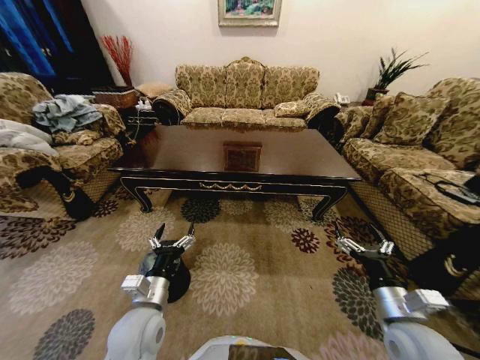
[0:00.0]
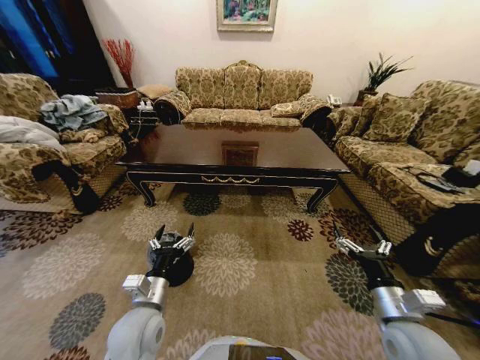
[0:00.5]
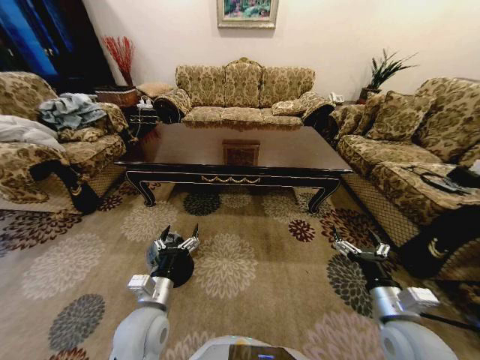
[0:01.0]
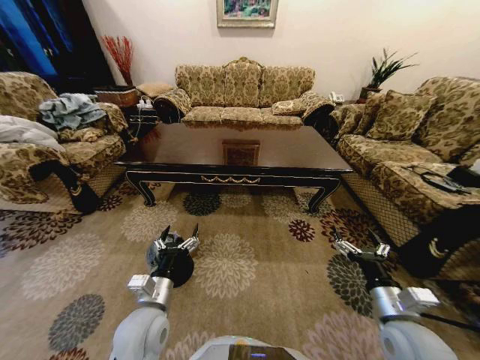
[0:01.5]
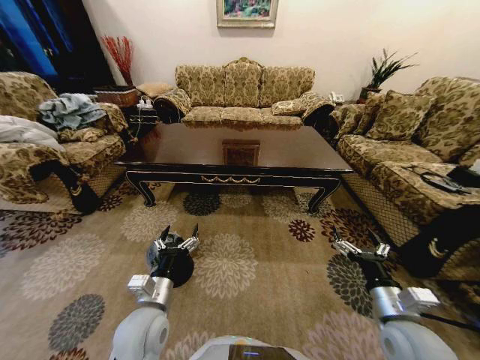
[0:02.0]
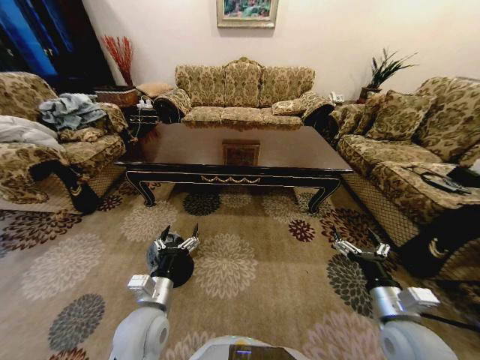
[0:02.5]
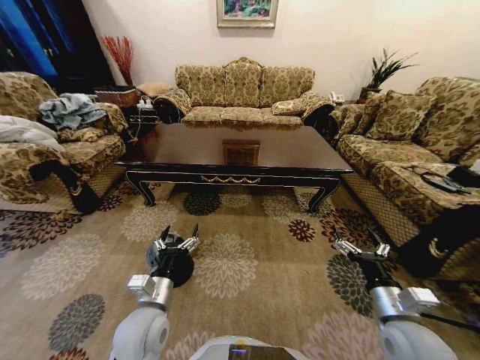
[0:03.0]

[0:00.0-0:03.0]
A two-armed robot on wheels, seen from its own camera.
Task of the whole recording: Move to the front of the table and place the trash on the table into the trash bin.
0:01.5 to 0:03.0: Neither gripper changes place.

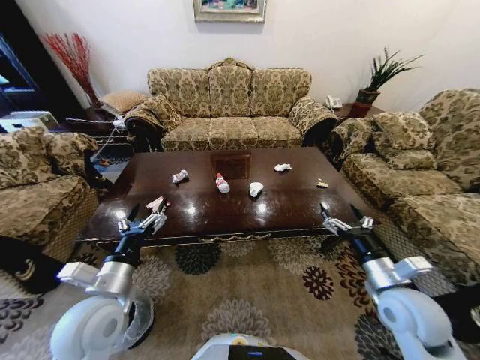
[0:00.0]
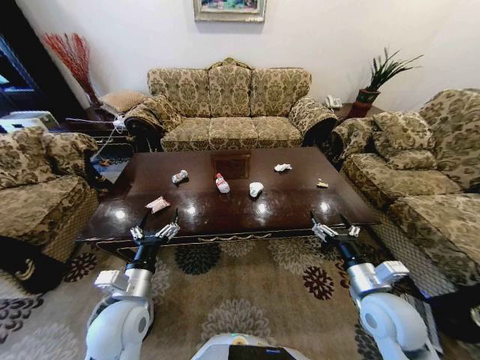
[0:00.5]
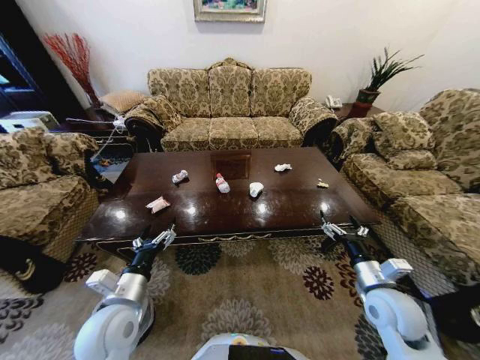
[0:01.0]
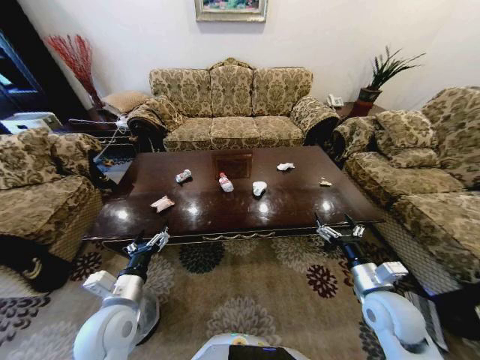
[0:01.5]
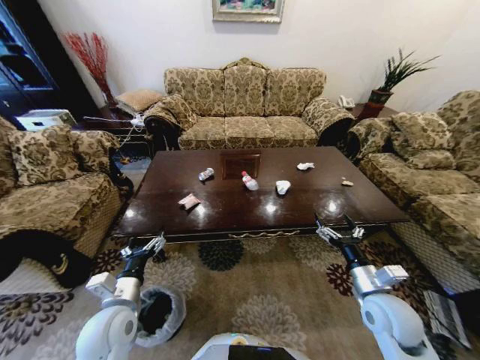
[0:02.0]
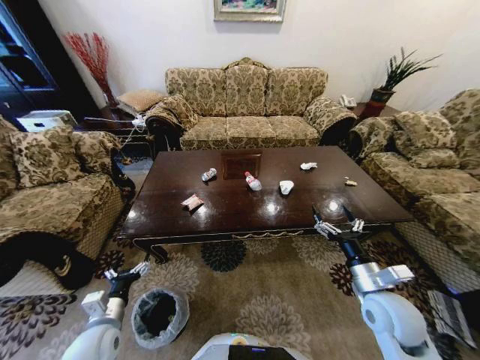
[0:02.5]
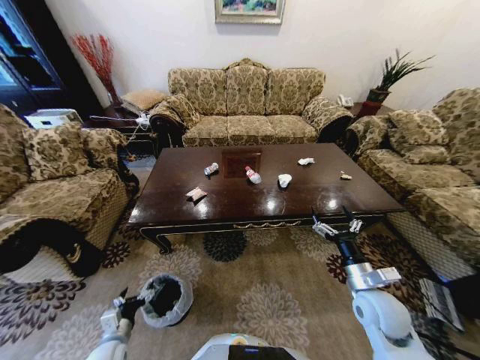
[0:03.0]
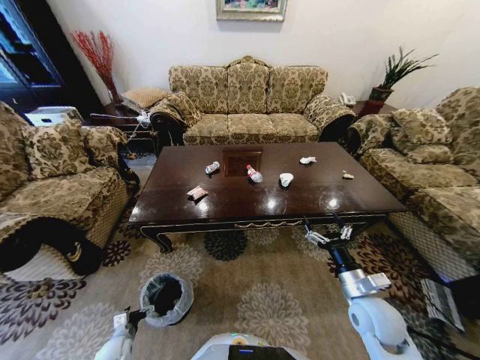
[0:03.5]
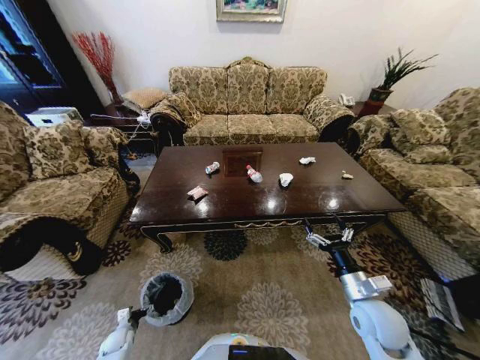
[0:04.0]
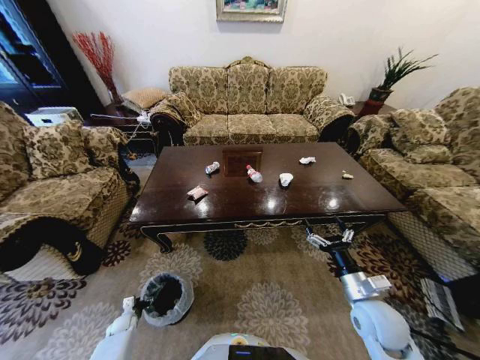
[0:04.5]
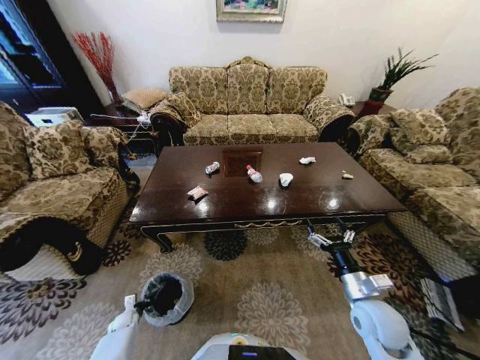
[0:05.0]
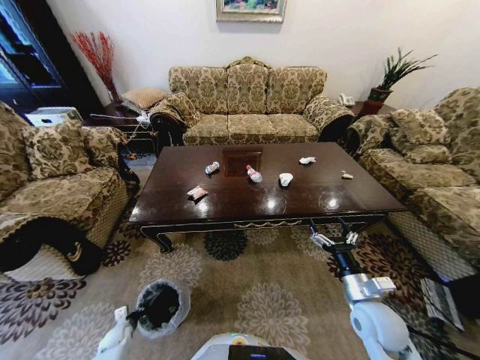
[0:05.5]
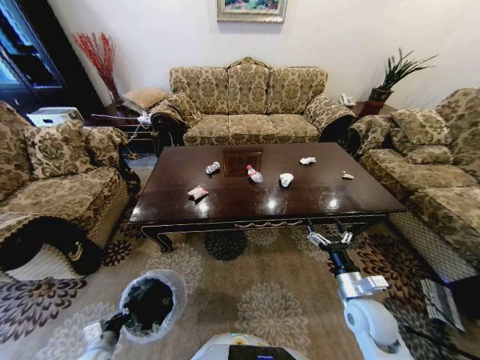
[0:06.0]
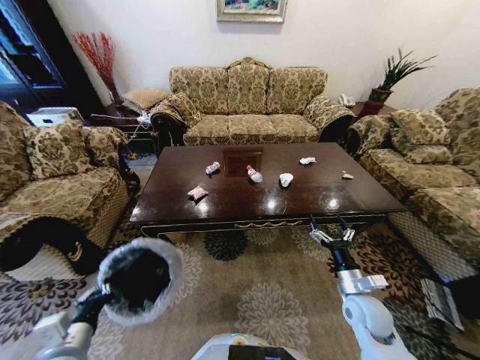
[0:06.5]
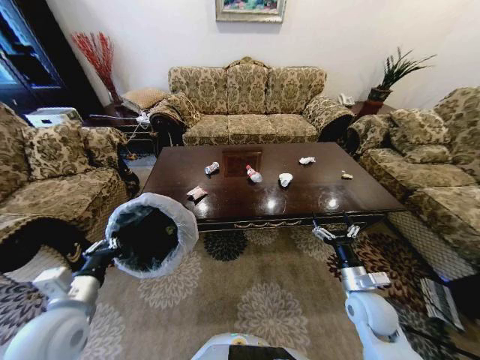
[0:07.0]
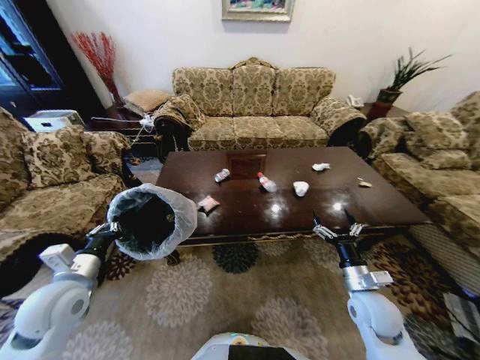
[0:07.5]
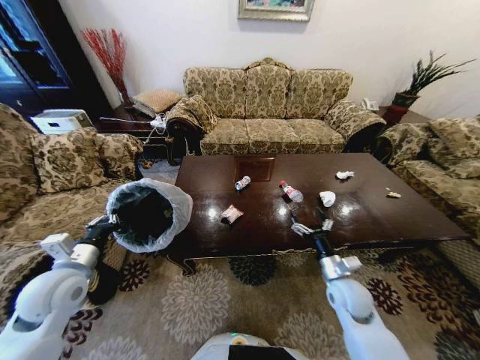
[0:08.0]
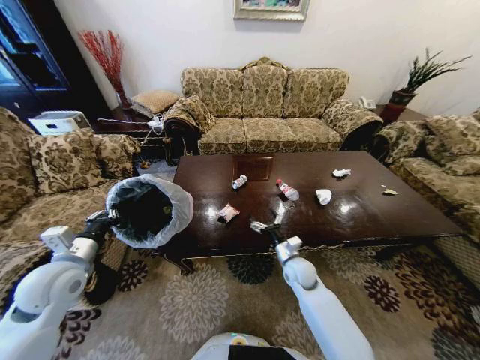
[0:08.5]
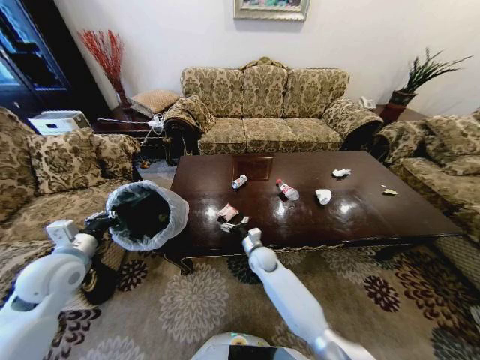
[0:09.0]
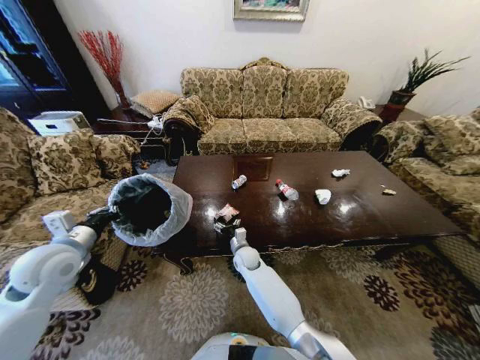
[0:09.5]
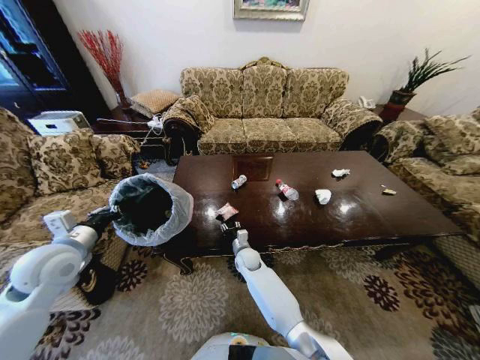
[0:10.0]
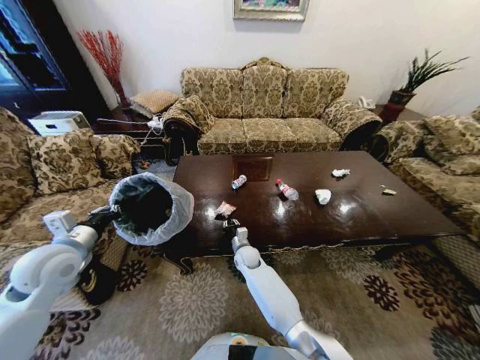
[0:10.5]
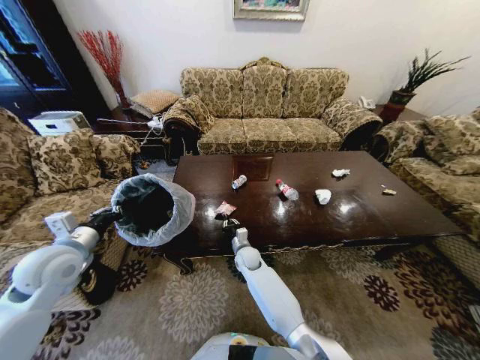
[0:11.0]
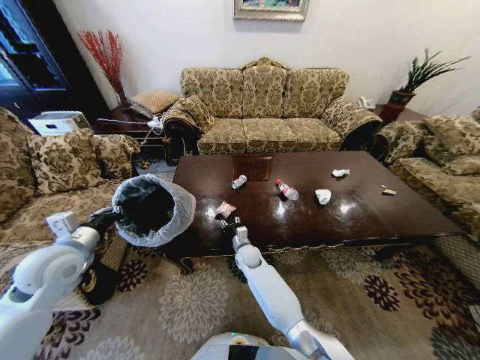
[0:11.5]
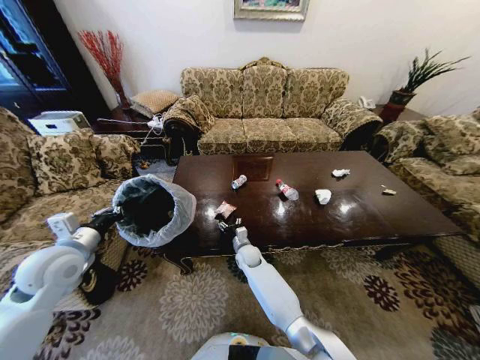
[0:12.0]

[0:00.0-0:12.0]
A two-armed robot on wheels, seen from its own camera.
Task of the whole recording: Move to the front of the table and place the trash on the table into the trash bin.
0:02.0 to 0:04.0: The left gripper is displaced downward and to the left by roughly 40 cm.
0:04.0 to 0:06.0: The left gripper heads upward and backward, covering approximately 15 cm, and closes up.
0:06.0 to 0:08.0: The right gripper ends up about 5 cm from where it was, while the left gripper shifts about 30 cm upward and forward.
0:08.0 to 0:10.0: The left gripper ends up approximately 5 cm from where it was, while the right gripper heads to the left, forward and downward, covering roughly 35 cm, and closes its fingers.
0:10.0 to 0:12.0: The right gripper closes and opens again.

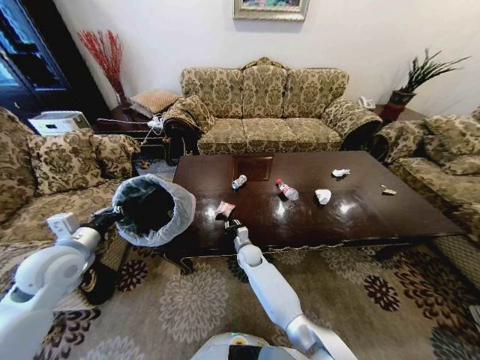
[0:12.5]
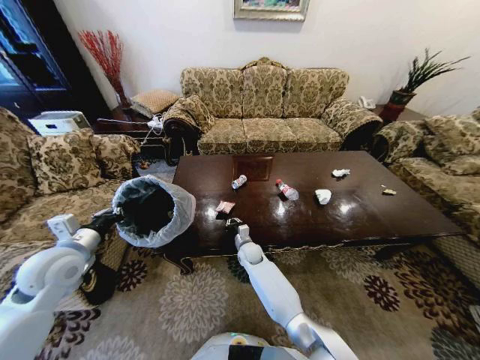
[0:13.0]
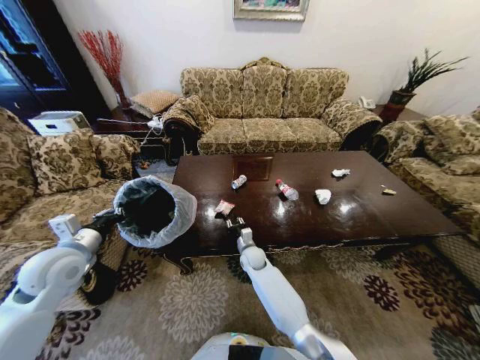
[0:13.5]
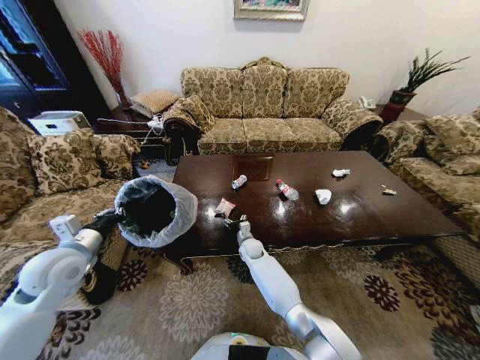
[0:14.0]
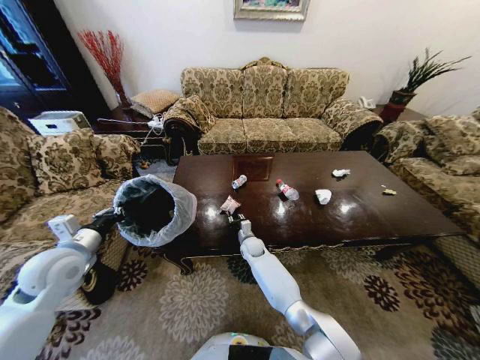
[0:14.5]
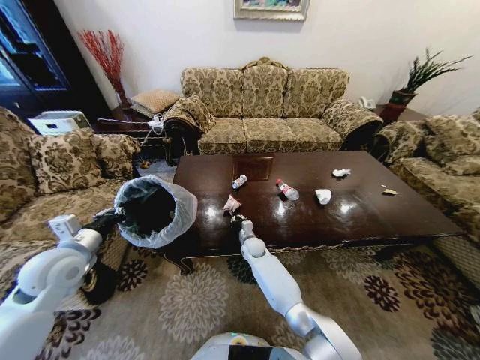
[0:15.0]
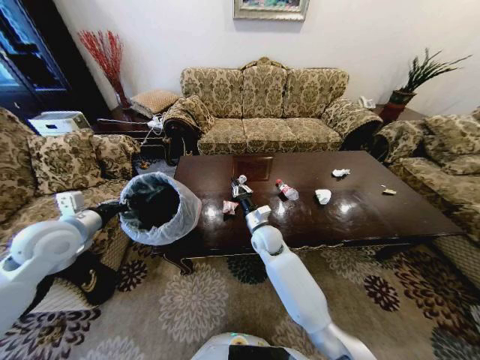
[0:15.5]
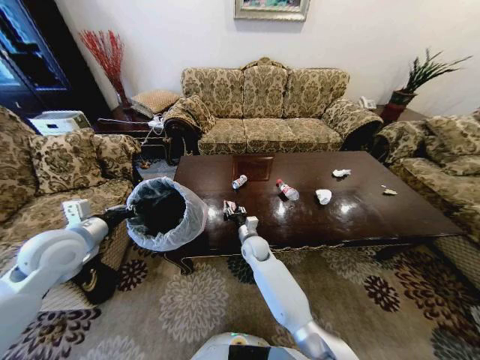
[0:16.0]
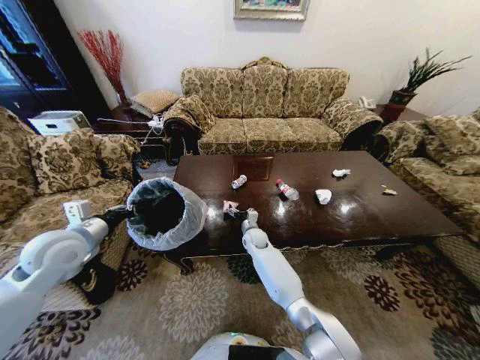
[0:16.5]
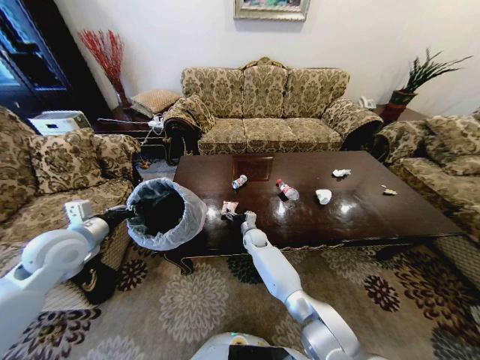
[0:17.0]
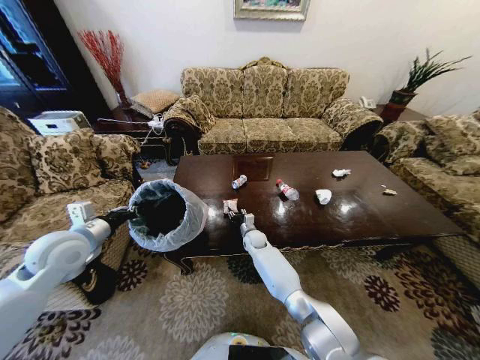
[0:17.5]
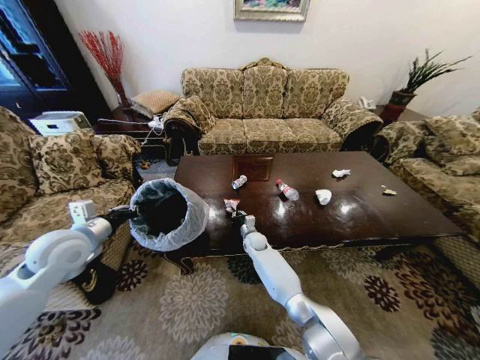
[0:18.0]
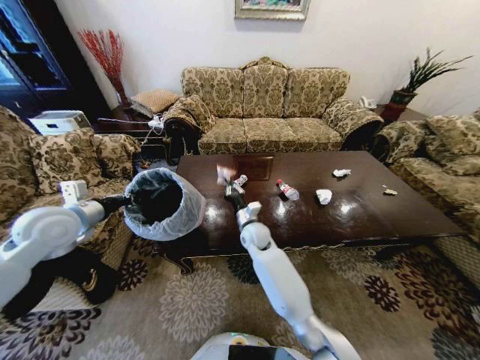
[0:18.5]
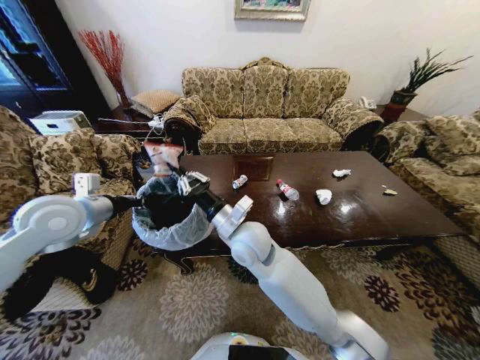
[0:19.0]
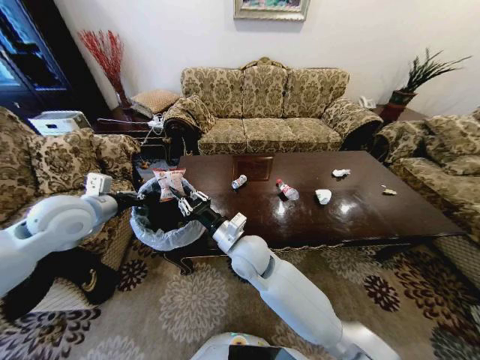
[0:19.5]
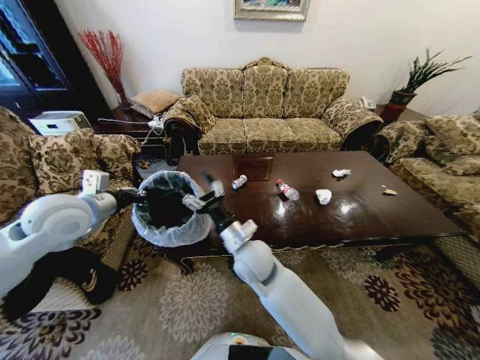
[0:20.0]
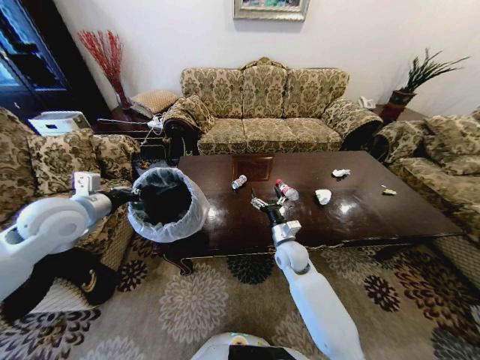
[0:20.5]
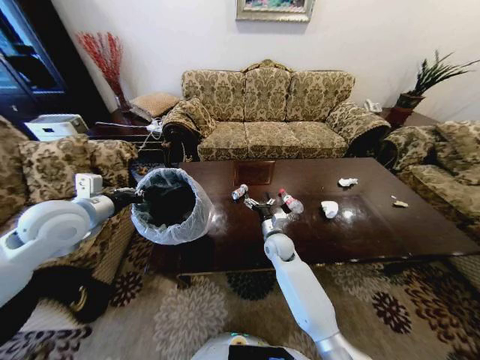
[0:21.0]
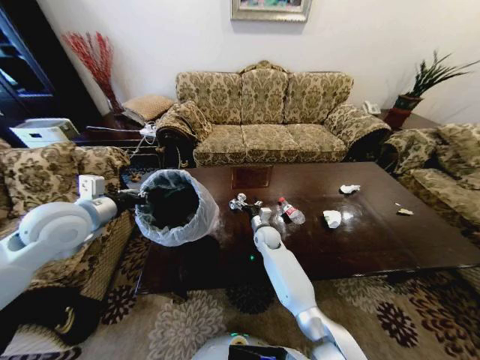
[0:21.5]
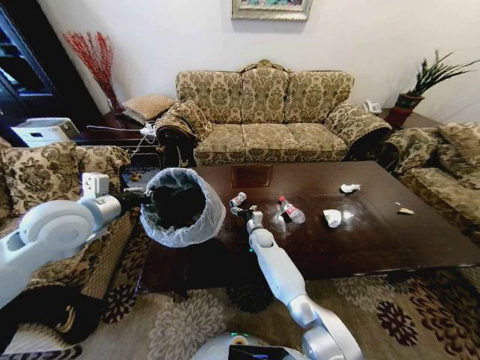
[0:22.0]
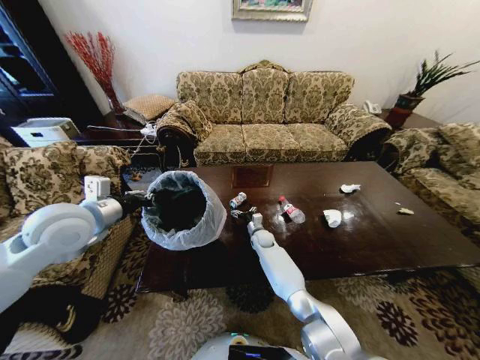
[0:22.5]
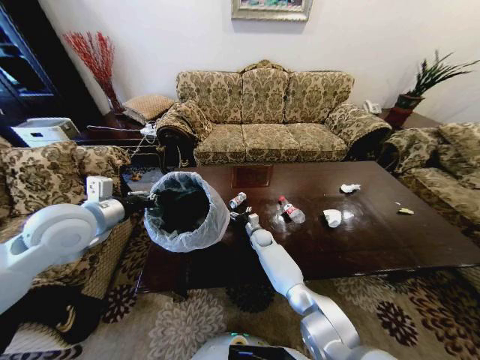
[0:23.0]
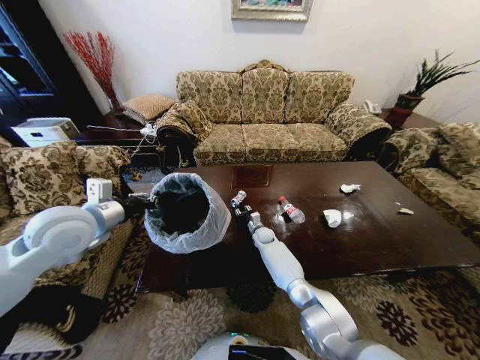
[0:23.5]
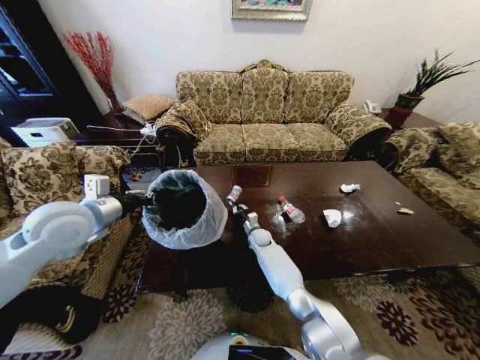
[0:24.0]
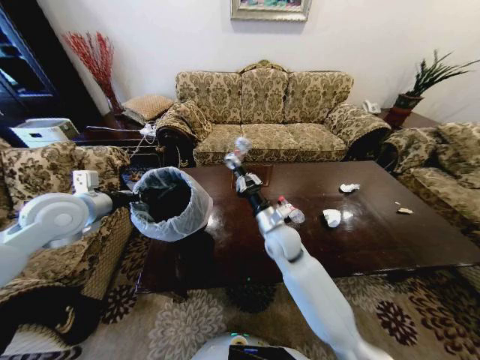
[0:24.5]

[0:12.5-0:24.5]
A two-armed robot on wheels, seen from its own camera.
Task of the whole recording: Move to the front of the table and place the trash on the table into the trash bin.
0:12.5 to 0:14.5: The right gripper opens and closes again.
0:14.5 to 0:16.5: The right gripper moves roughly 15 cm upward and comes back, and opens its fingers.
0:16.5 to 0:18.5: The left gripper shifts by about 5 cm; the right gripper travels upward by some 10 cm, and closes up.
0:18.5 to 0:20.5: The right gripper is displaced to the right and backward by about 15 cm, reaches some 15 cm upward, then returns, and opens its fingers.
0:20.5 to 0:22.5: The right gripper moves forward, downward and to the left, approximately 20 cm.
0:22.5 to 0:24.5: The right gripper heads upward and backward, covering roughly 25 cm, and closes up.
